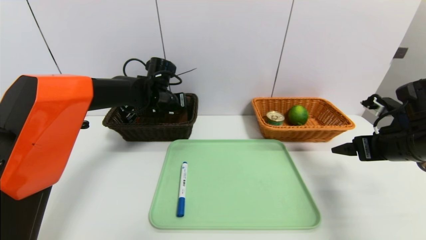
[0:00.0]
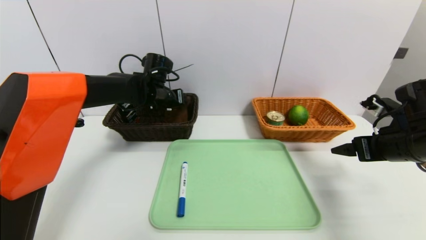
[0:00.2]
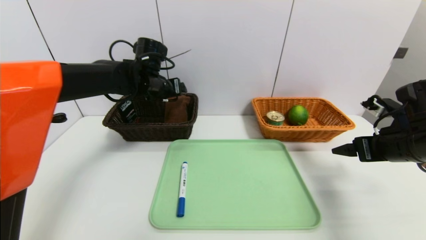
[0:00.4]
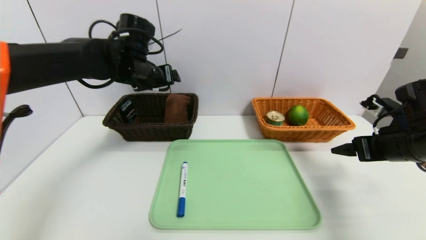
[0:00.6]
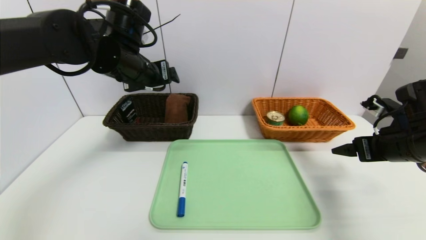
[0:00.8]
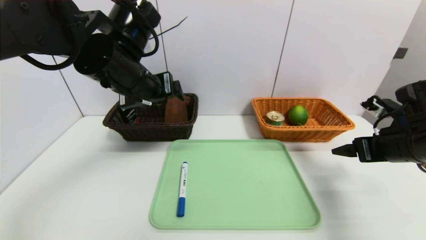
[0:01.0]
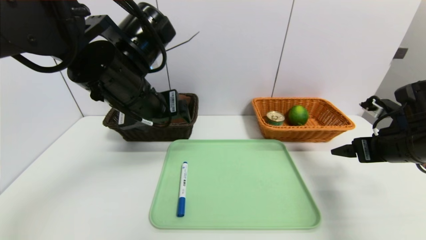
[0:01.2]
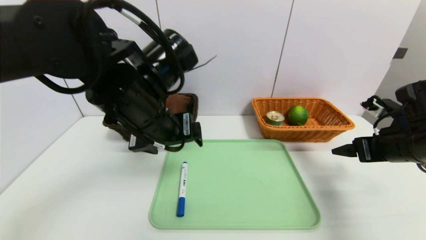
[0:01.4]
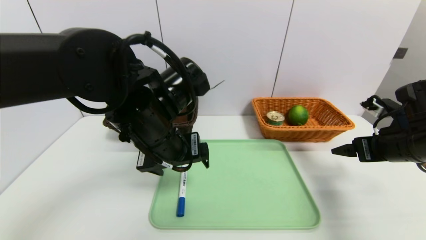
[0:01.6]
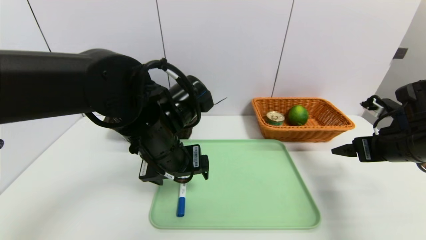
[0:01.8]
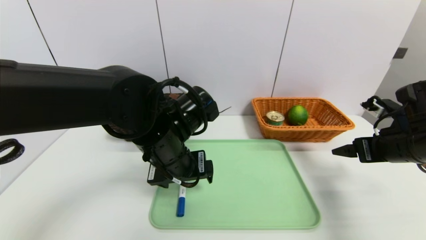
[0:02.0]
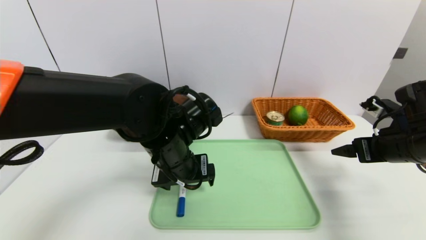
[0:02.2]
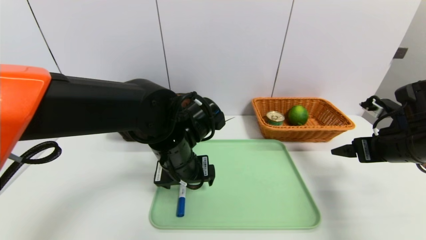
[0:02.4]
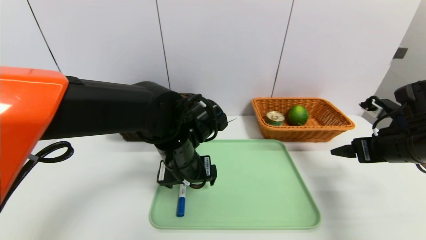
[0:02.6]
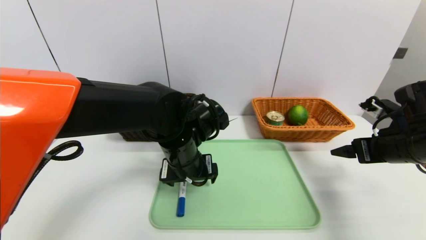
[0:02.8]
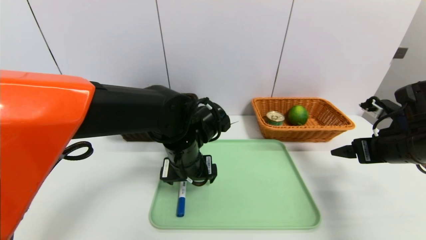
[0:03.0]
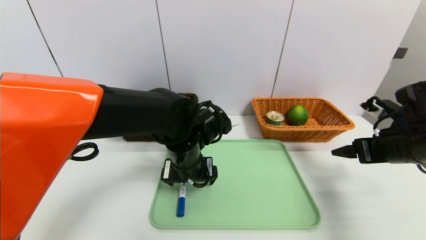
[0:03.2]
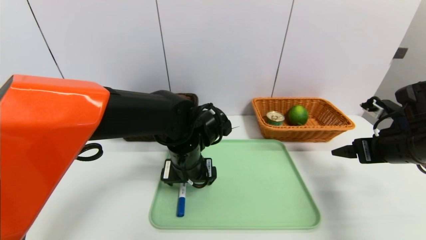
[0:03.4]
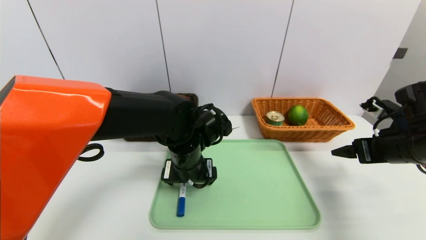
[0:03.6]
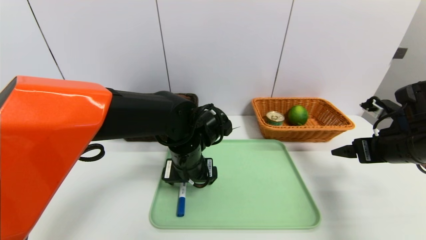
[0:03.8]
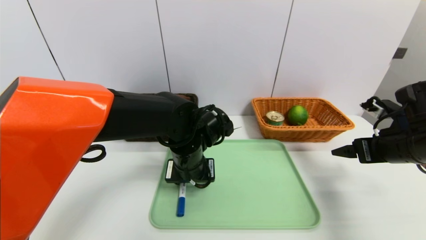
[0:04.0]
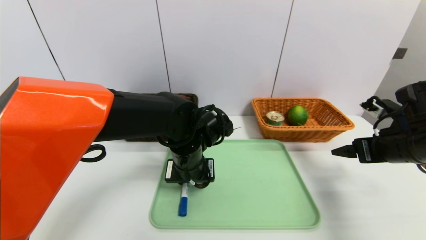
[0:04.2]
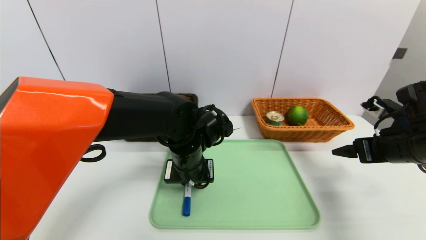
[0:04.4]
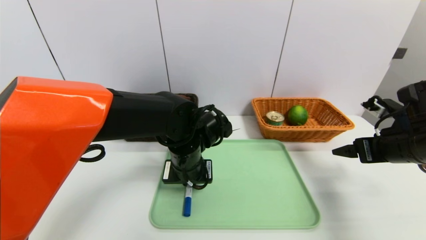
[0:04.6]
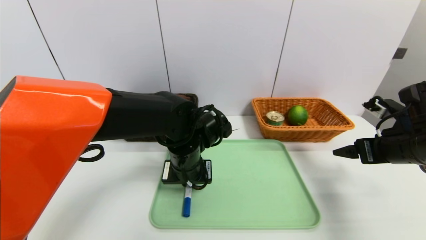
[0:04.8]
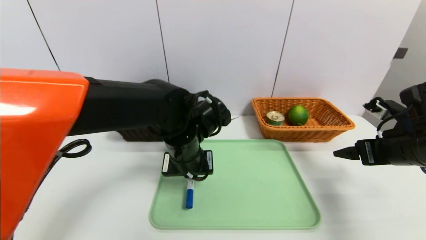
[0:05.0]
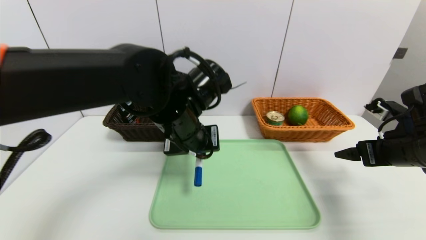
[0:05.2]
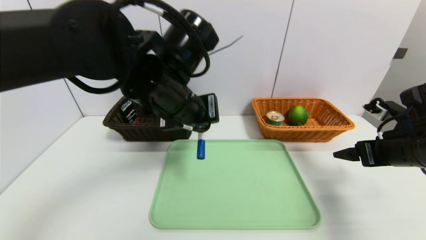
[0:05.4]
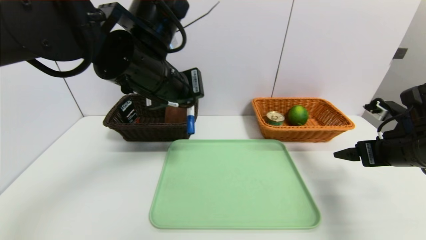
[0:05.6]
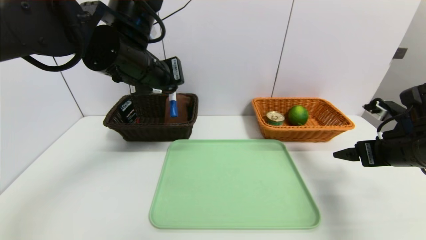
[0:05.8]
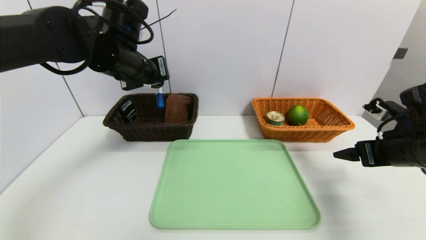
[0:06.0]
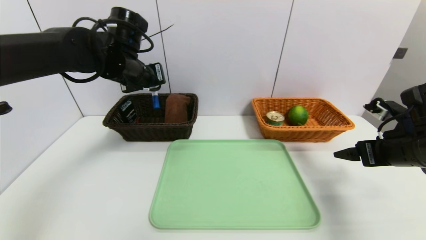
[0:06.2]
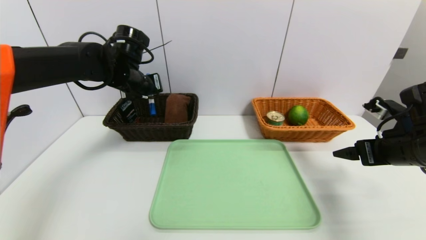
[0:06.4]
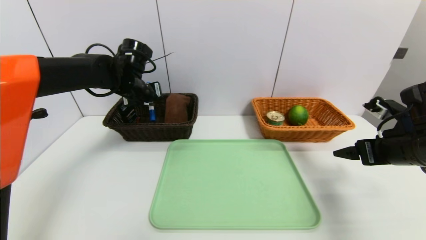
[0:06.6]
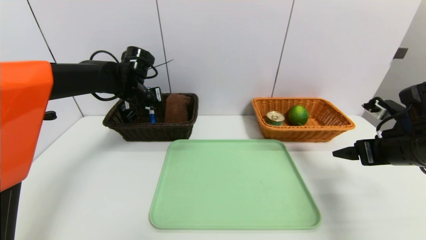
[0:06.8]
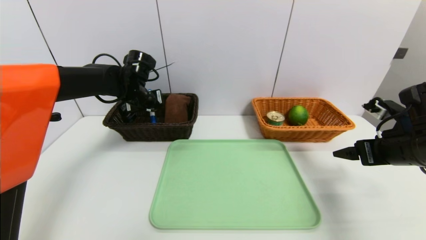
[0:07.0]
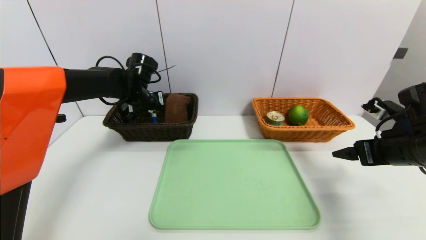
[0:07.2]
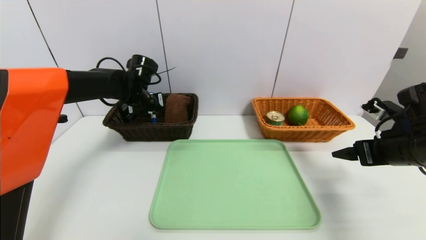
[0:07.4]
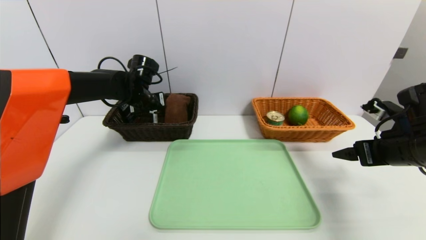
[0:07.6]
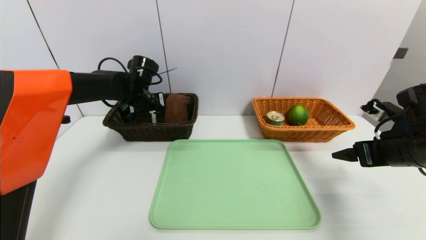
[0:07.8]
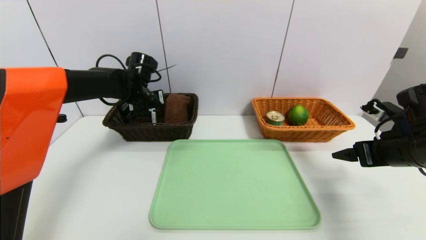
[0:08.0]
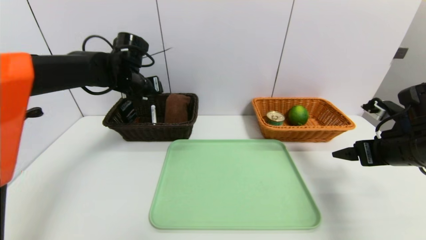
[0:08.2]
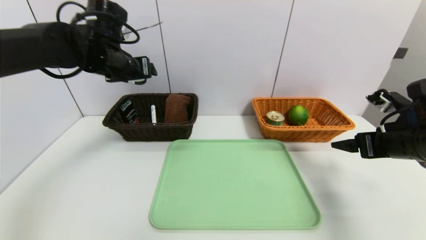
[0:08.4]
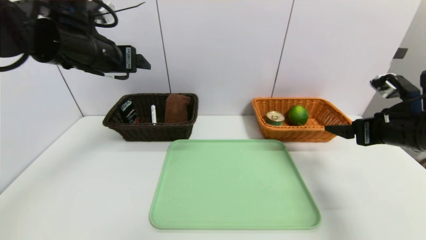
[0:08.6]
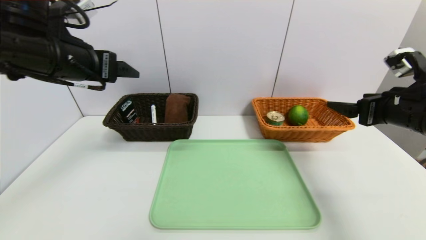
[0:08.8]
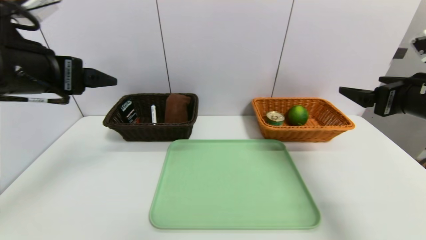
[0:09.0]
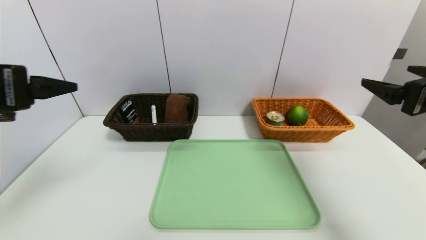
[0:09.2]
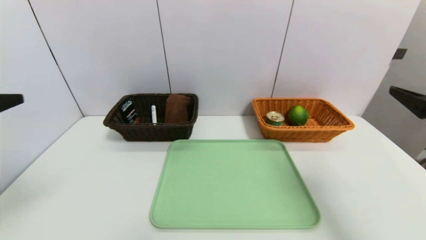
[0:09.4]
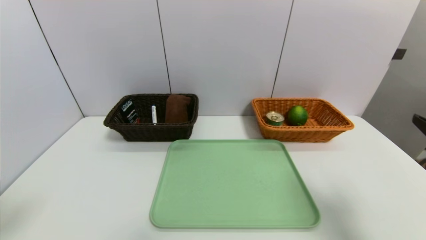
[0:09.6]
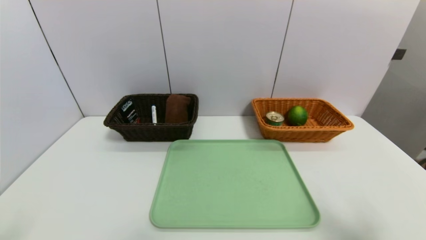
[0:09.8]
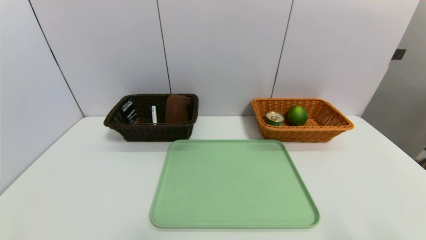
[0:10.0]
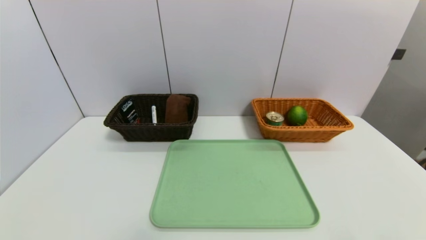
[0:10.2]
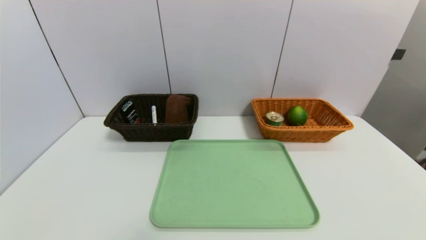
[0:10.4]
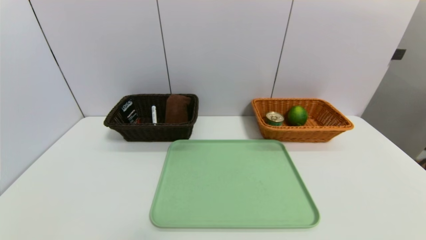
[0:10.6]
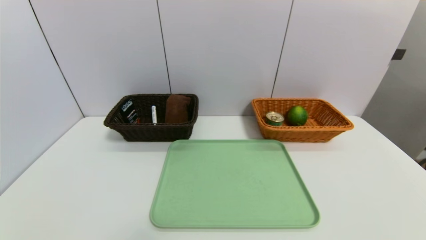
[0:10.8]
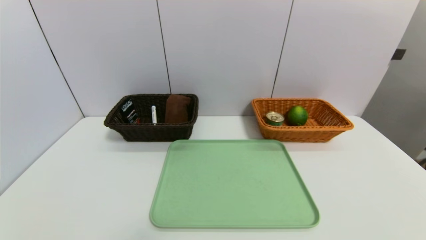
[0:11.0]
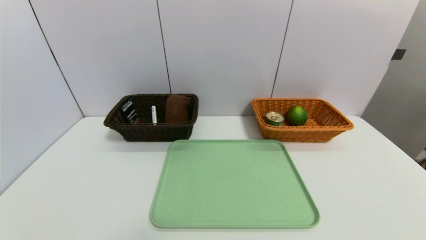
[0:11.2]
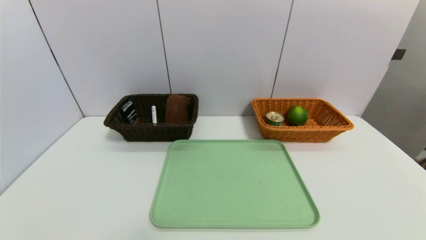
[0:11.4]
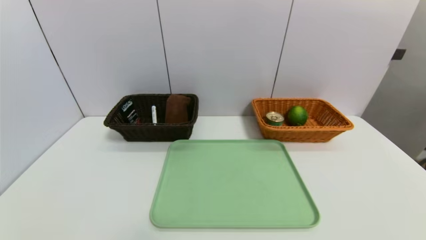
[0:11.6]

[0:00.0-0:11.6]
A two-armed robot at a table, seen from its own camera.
Task of the whole recording: place the food in the right basket with the right gripper, and place the non food items in the left basket with the left gripper.
Step, 0:01.0 to 0:08.6: Grasp the blue marker and put it in the left basket.
0:00.0 to 0:01.4: The left gripper travels backward by approximately 20 cm.
0:01.4 to 0:02.8: The left gripper moves downward, about 10 cm.
0:02.8 to 0:04.4: The left gripper closes.
0:04.4 to 0:05.8: The left gripper heads upward and to the left, covering about 20 cm.
0:05.8 to 0:07.2: The left gripper moves forward, downward and to the left, roughly 20 cm.
0:07.2 to 0:08.8: The left gripper travels backward and upward by approximately 20 cm, and opens; the right gripper shifts about 5 cm upward.
0:08.8 to 0:10.2: The left gripper travels backward and downward by some 35 cm; the right gripper heads backward, covering approximately 25 cm.

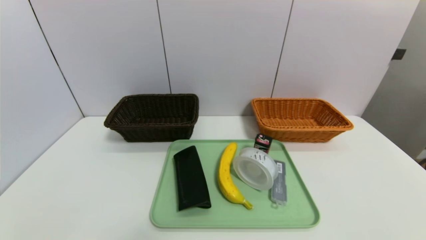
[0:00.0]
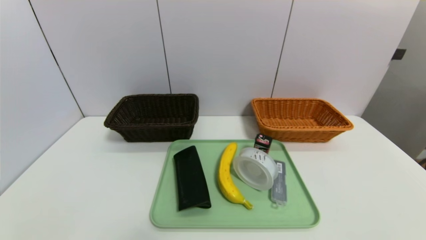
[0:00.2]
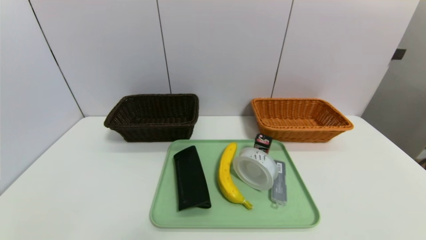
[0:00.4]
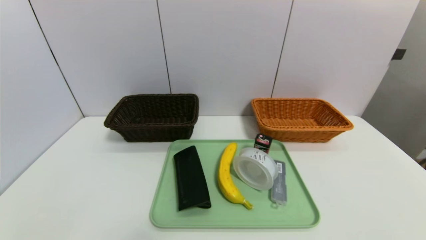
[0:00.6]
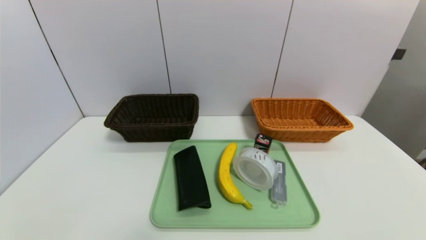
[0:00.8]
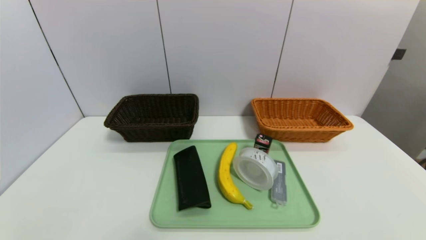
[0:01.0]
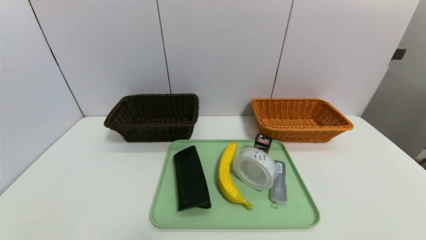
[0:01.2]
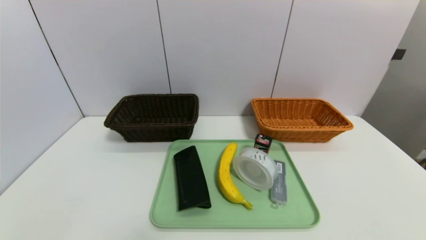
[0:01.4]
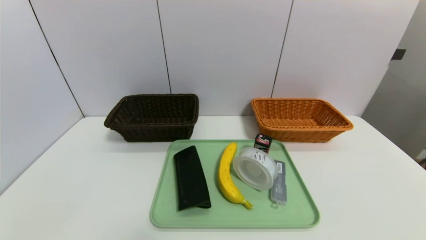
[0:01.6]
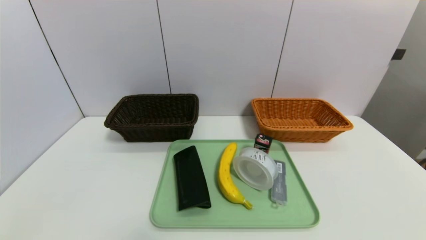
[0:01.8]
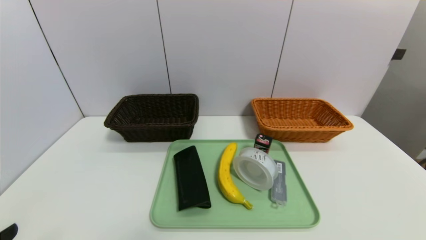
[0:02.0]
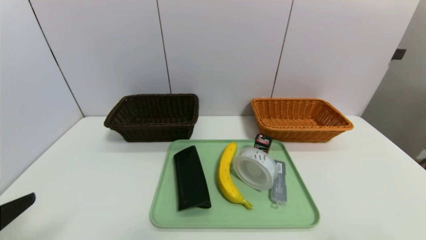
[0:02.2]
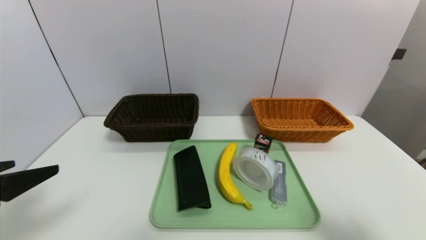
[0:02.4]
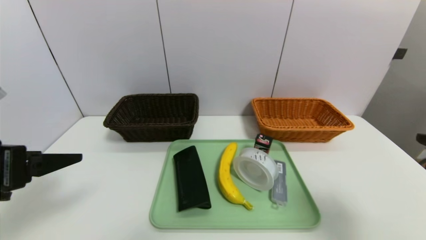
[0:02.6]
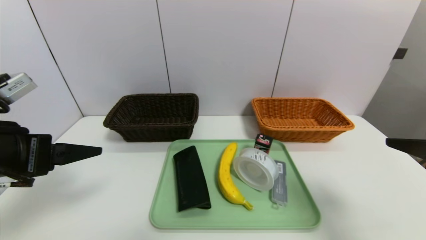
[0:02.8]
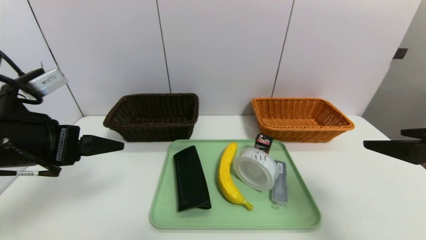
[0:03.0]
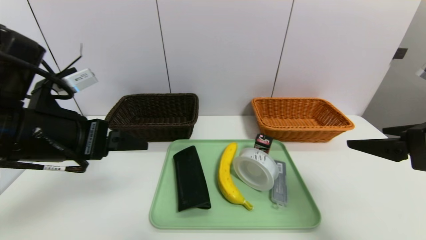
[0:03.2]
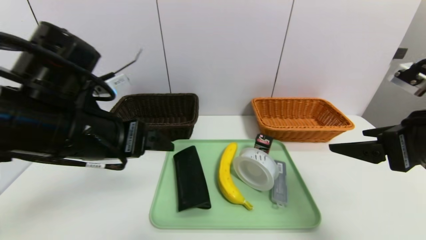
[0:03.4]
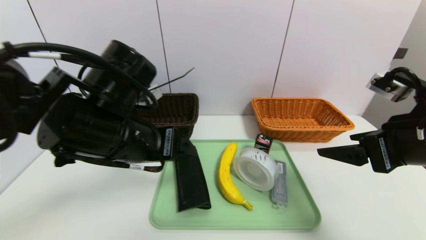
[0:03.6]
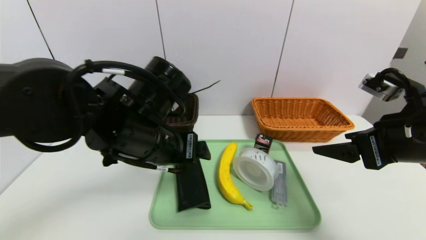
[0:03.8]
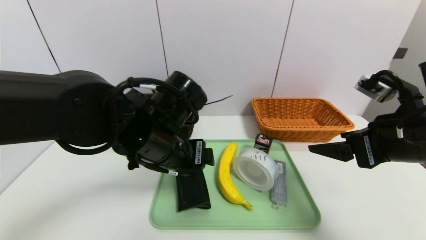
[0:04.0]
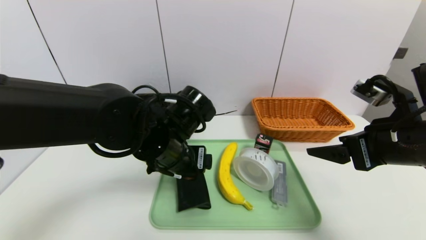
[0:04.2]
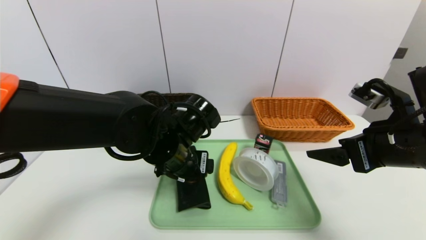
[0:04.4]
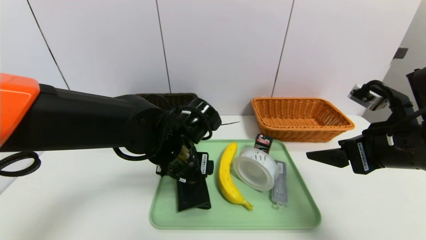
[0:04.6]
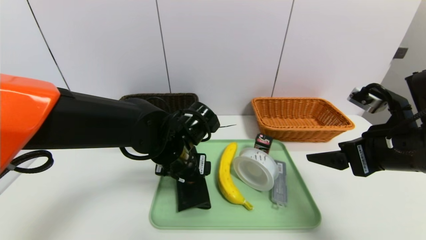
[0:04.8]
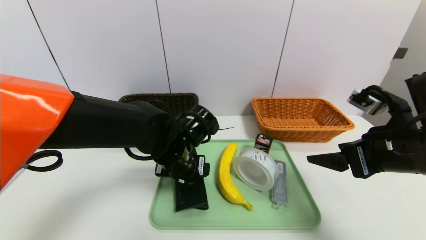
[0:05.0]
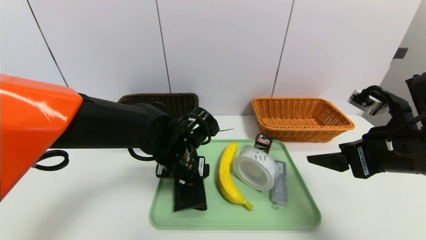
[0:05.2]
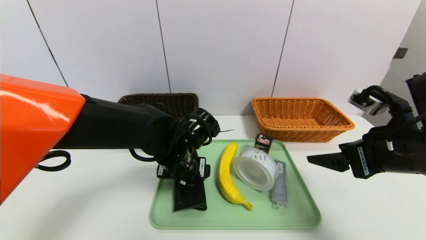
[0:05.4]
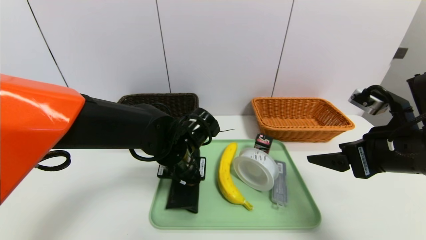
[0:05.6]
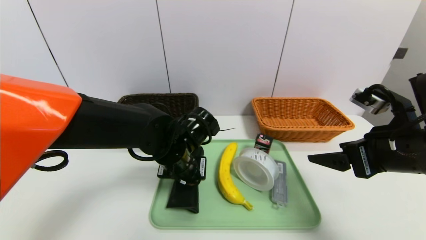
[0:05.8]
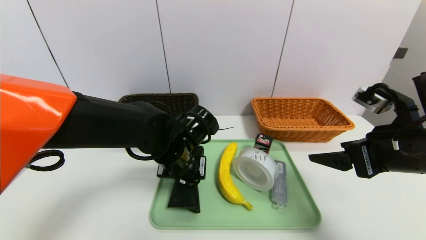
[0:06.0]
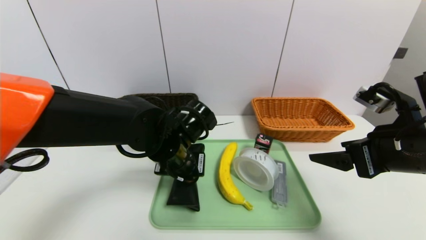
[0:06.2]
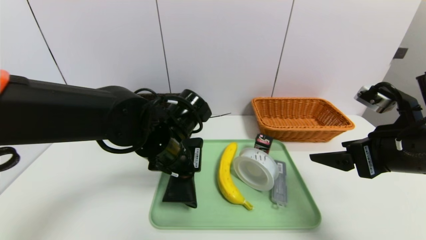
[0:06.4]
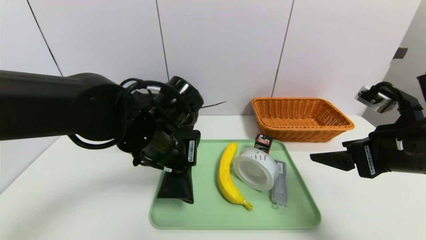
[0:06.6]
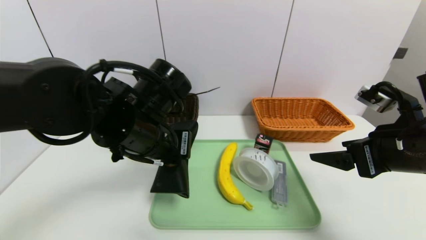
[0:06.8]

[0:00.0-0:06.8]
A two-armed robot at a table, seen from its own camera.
Task of the whole recording: place the food in the right basket with the right gripper, and place the non food items in the left basket with the left gripper.
0:01.4 to 0:02.8: The left gripper is displaced forward and upward by roughly 25 cm, while the right gripper shifts approximately 25 cm upward and forward.
0:02.8 to 0:04.0: The left gripper heads to the right and forward, covering roughly 20 cm; the right gripper travels forward and to the left by approximately 10 cm.
0:04.0 to 0:05.4: The left gripper moves downward, about 5 cm.
0:05.4 to 0:06.8: The left gripper moves upward, approximately 10 cm, and closes its fingers.
